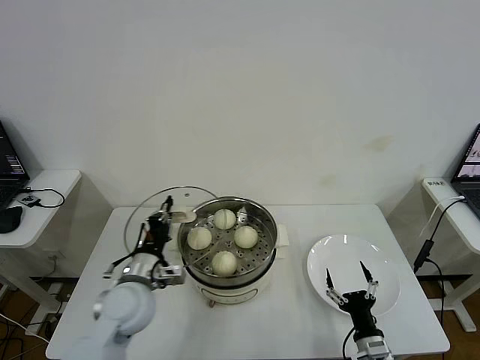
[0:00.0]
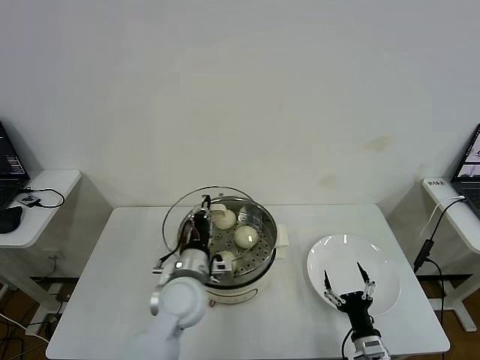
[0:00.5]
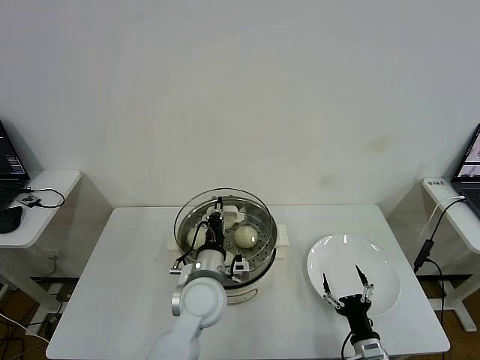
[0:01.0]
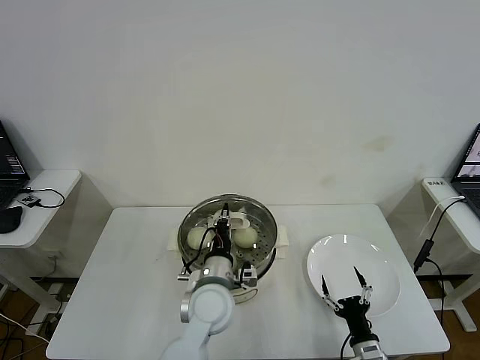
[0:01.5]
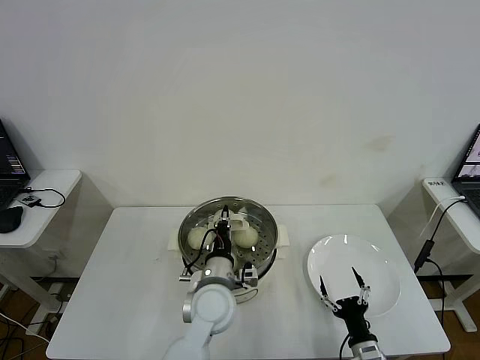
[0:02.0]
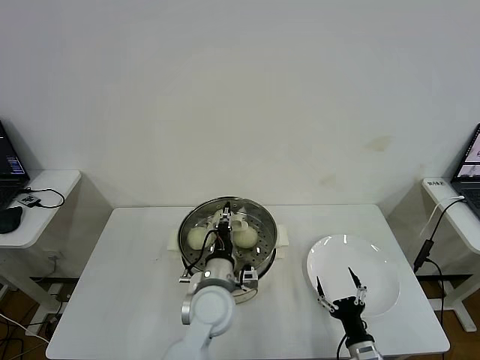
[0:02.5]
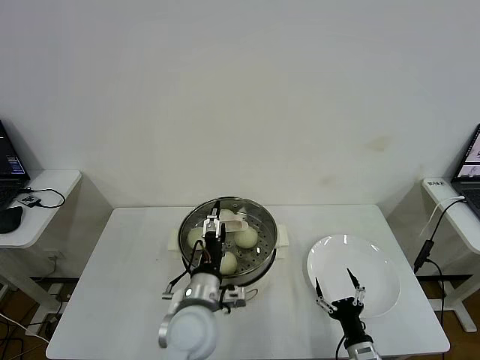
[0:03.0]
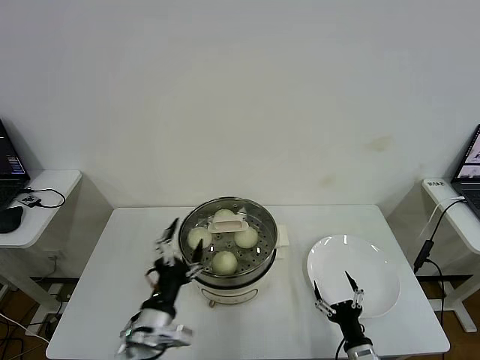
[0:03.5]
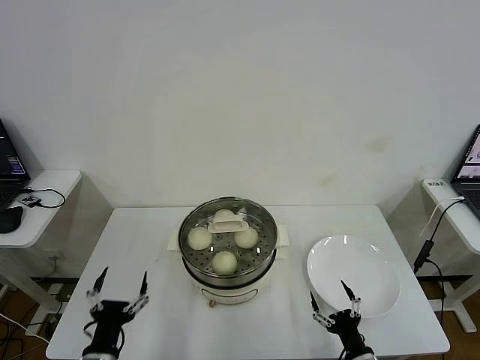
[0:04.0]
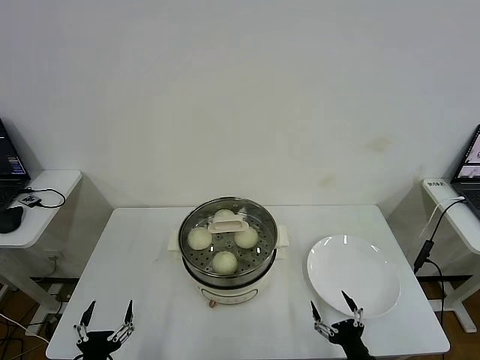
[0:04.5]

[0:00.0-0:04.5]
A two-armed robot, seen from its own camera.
Step, 0:00.0 to 0:02.5: Place the pot lid on the steamer with left gripper.
0:00.0 to 0:02.0: The left gripper moves to the right, some 15 cm.
0:02.0 to 0:04.5: The left gripper heads to the left and backward, covering about 35 cm, and opens its fingers; the right gripper moves some 5 cm.

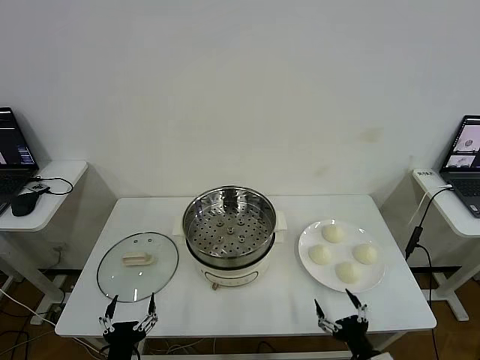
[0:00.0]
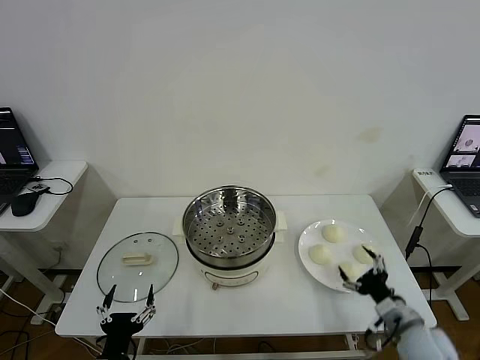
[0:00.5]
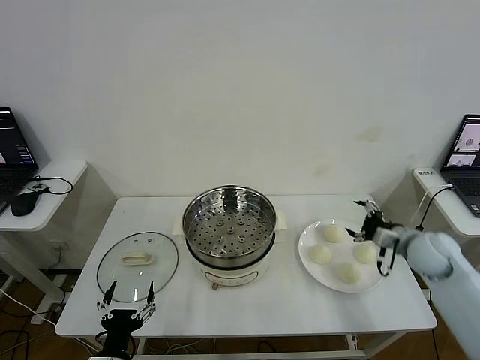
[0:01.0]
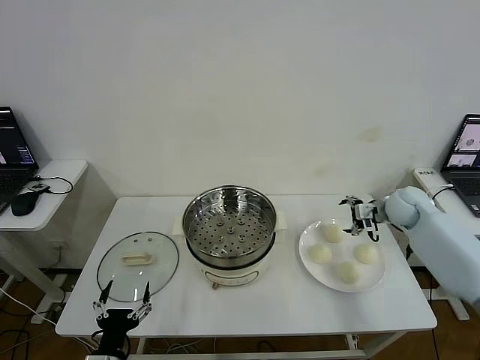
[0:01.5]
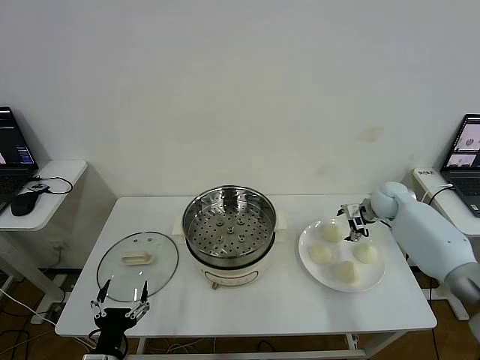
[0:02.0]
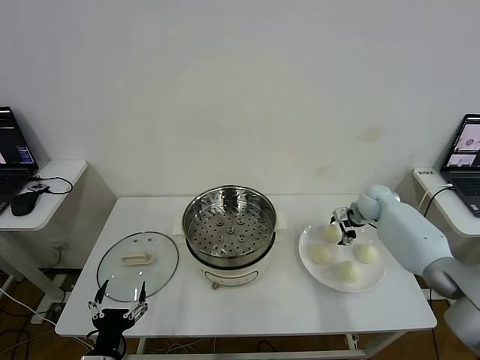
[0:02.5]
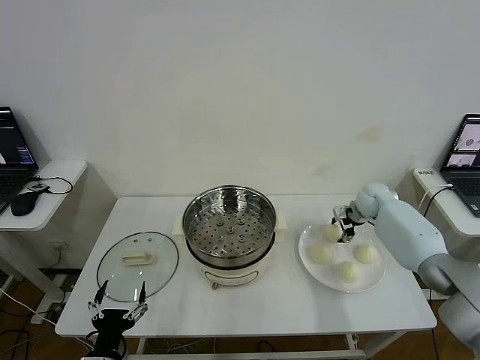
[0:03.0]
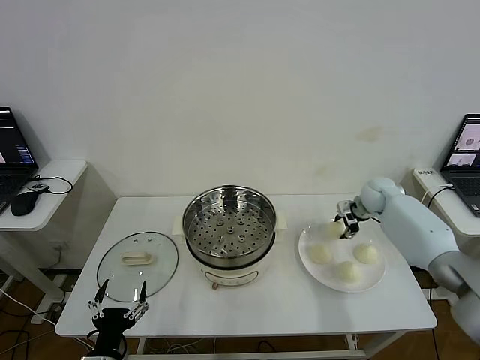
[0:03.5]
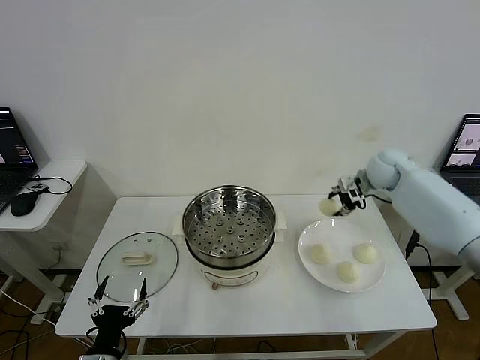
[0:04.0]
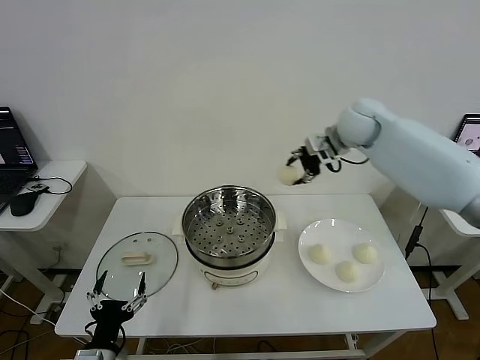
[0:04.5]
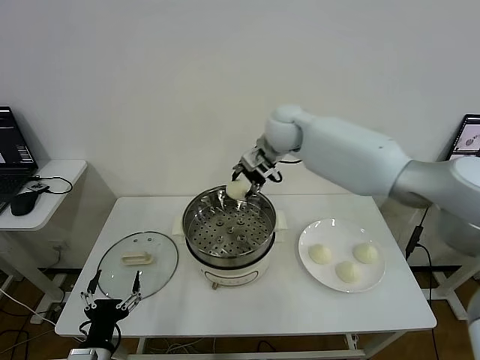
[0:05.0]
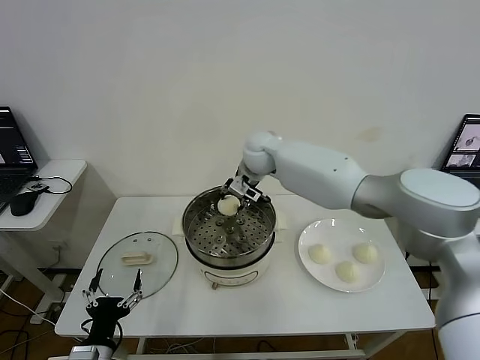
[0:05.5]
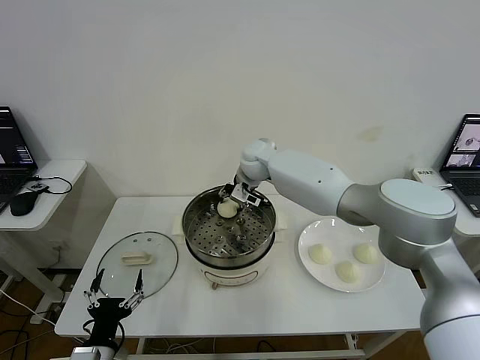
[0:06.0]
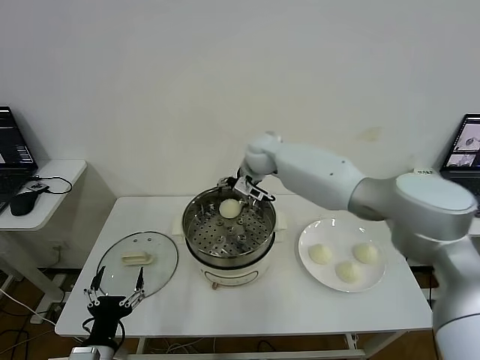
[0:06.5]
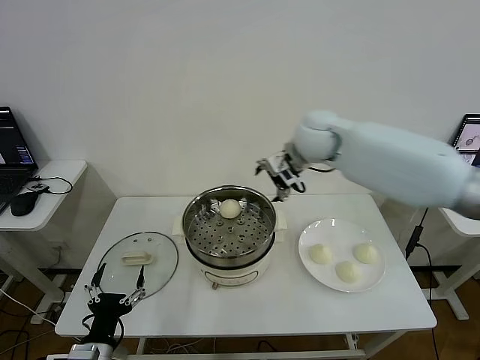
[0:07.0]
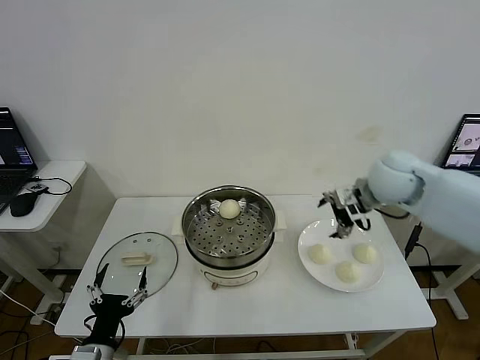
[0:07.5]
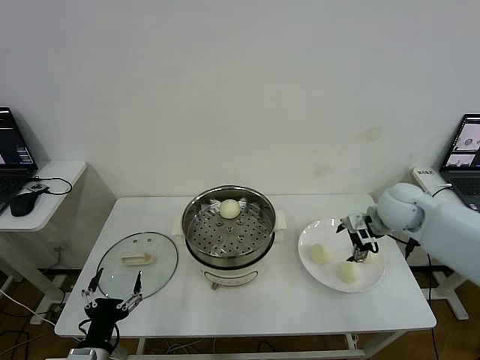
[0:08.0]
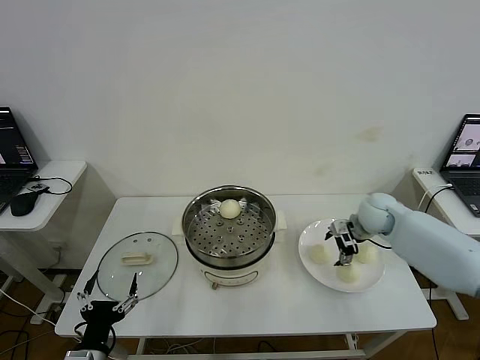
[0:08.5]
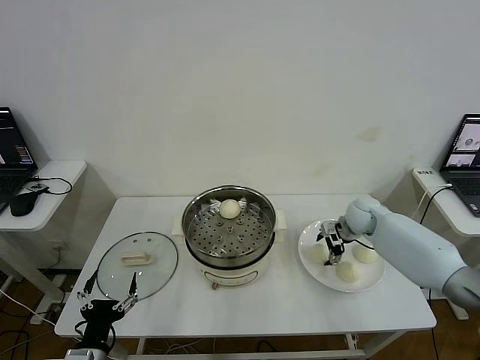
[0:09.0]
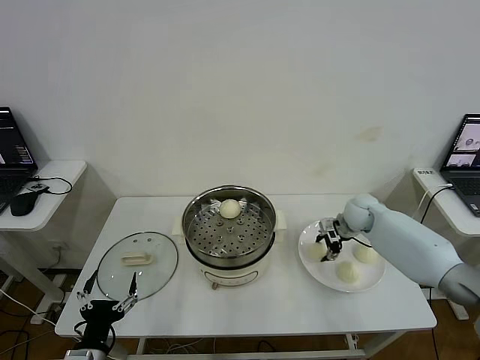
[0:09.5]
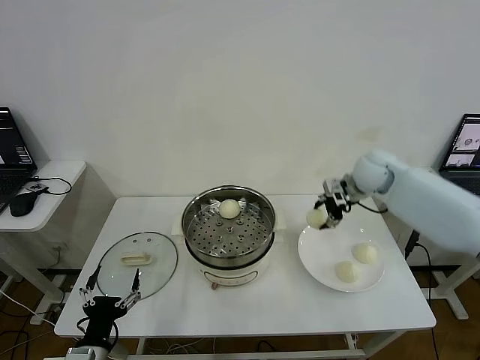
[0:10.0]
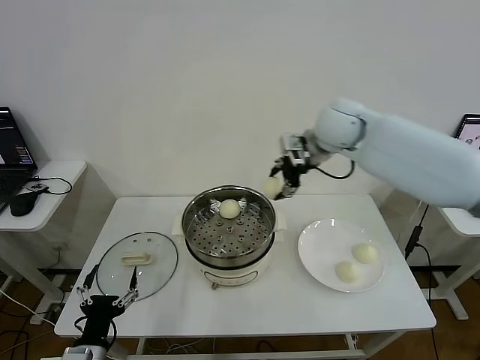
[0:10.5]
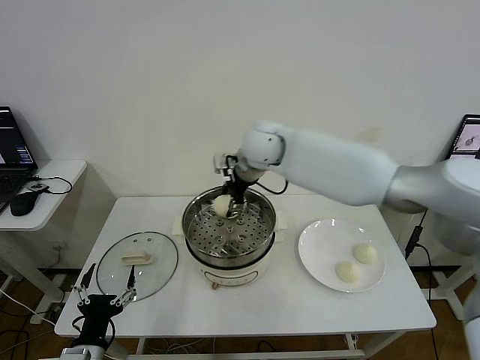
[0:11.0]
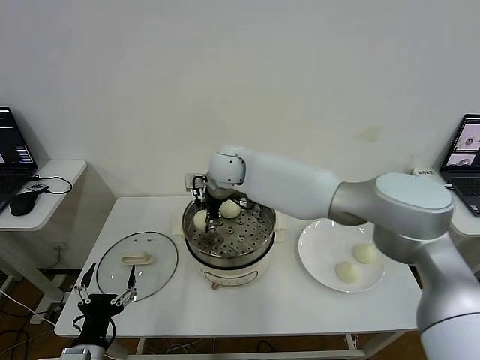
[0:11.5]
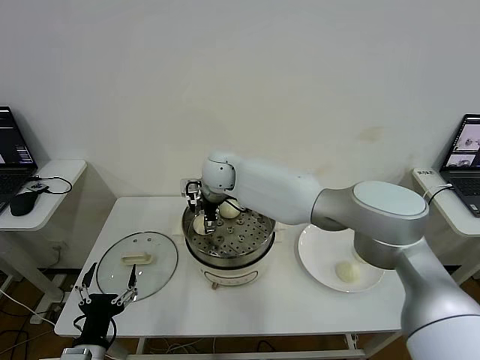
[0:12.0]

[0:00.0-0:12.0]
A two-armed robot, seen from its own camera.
Step, 0:00.0 to 0:03.0: Grasp the baozi in the plate with right gripper.
Step, 0:03.5 to 0:06.0: Place the baozi on the steamer with right gripper.
Step, 0:06.5 to 0:09.0: Grasp the baozi in the plate with right gripper.
Step, 0:10.0 to 0:12.0: Place the baozi on the steamer with right gripper.
0:02.0 to 0:04.0: The right gripper is displaced upward by approximately 15 cm, and closes.
0:04.0 to 0:06.0: The right gripper shifts roughly 30 cm to the left.
0:06.0 to 0:08.0: The right gripper heads to the right and backward, covering approximately 35 cm, and opens.
0:08.0 to 0:10.0: The right gripper goes roughly 15 cm upward, forward and to the left, and closes its fingers.
0:10.0 to 0:12.0: The right gripper goes approximately 35 cm to the left, and opens its fingers.

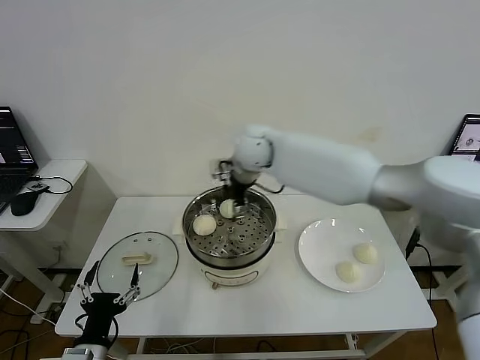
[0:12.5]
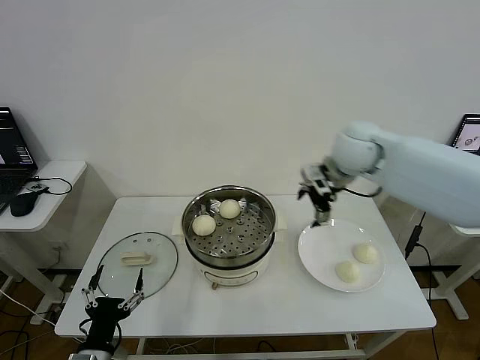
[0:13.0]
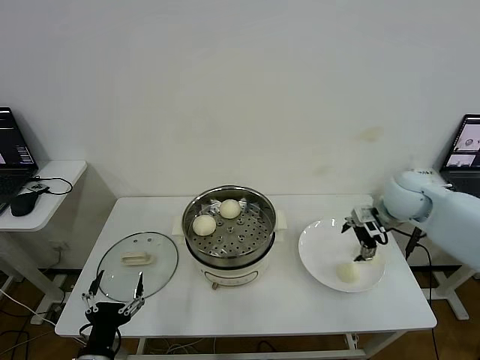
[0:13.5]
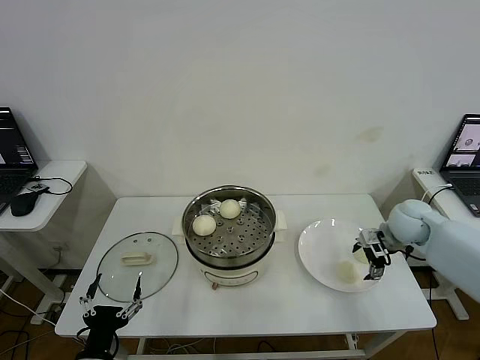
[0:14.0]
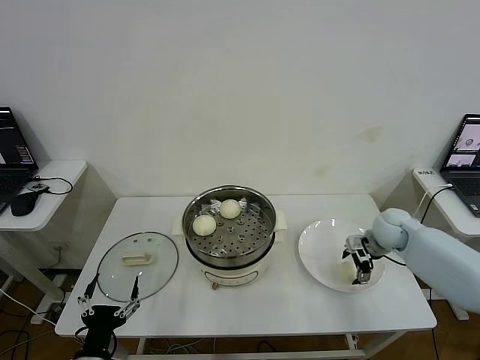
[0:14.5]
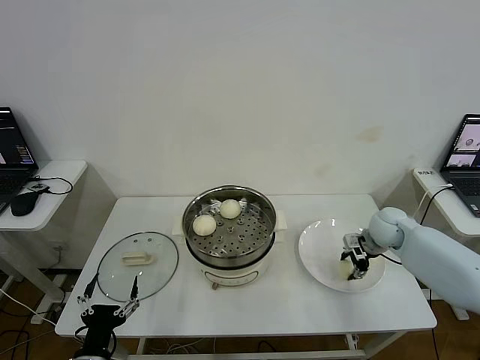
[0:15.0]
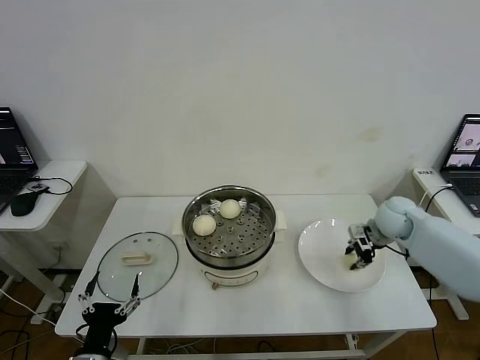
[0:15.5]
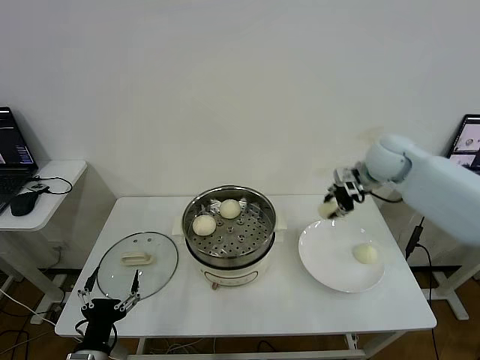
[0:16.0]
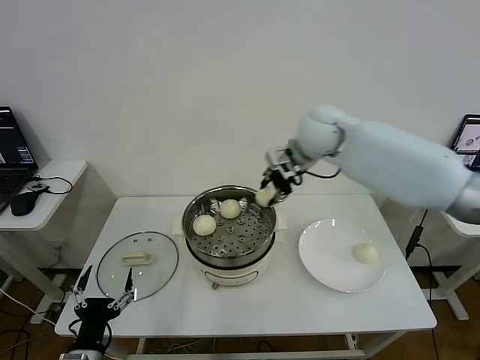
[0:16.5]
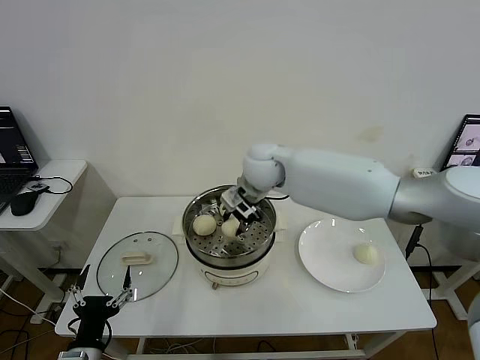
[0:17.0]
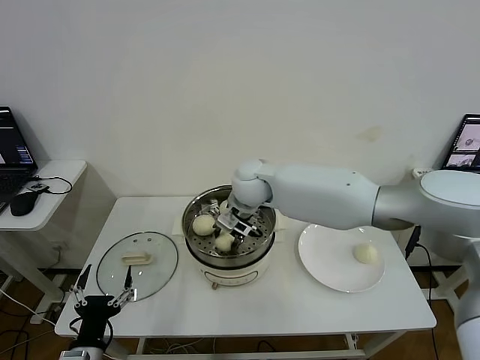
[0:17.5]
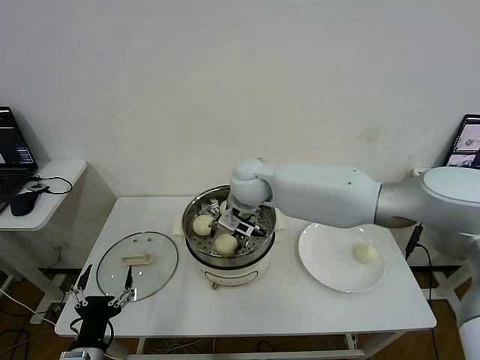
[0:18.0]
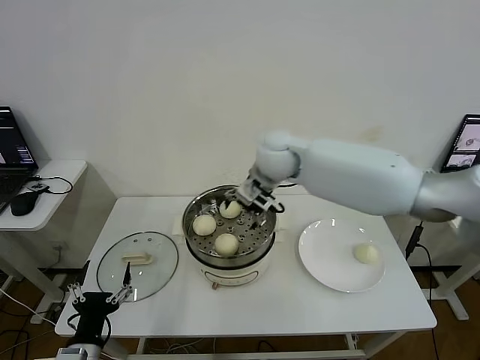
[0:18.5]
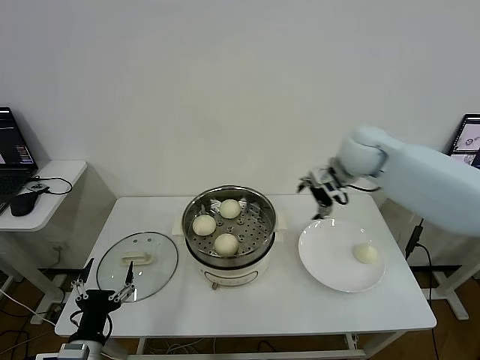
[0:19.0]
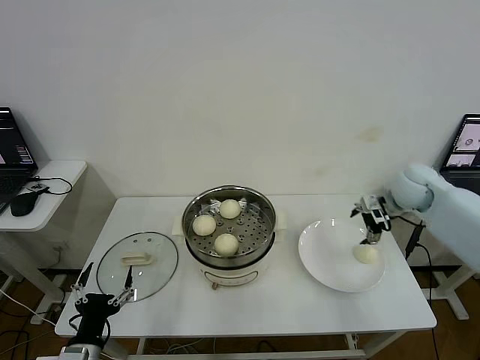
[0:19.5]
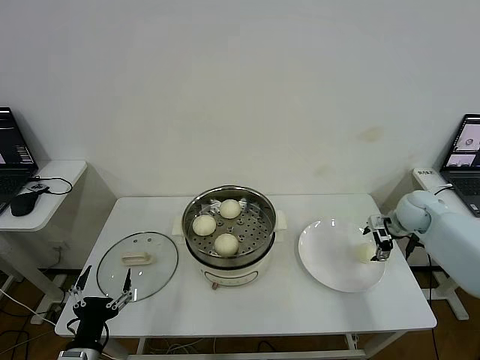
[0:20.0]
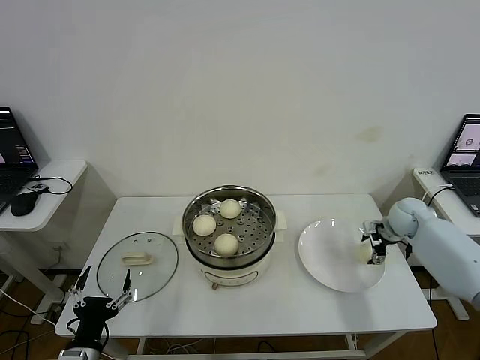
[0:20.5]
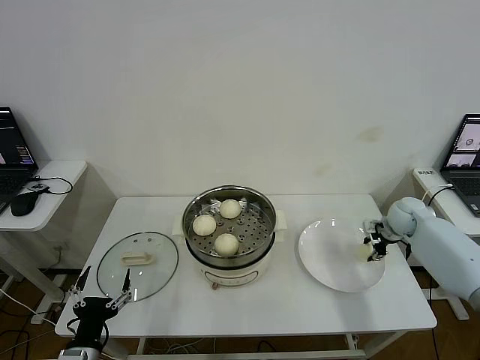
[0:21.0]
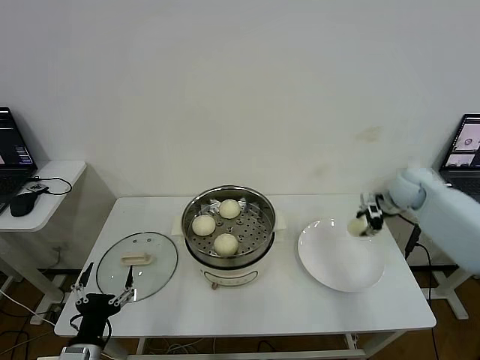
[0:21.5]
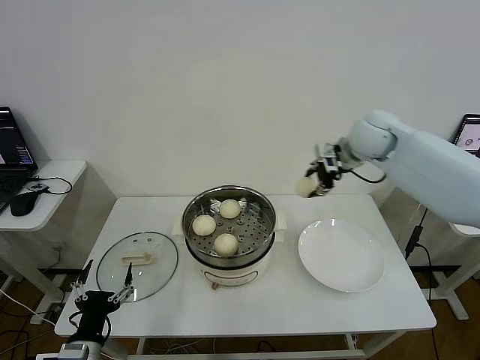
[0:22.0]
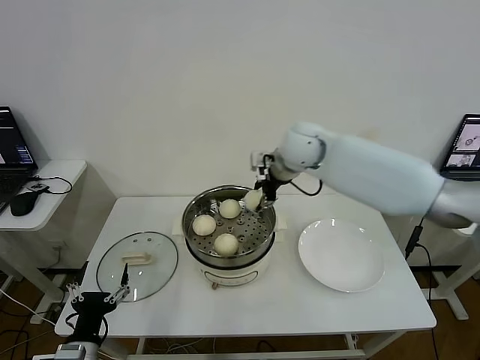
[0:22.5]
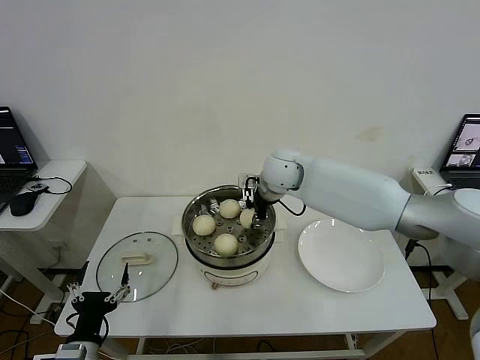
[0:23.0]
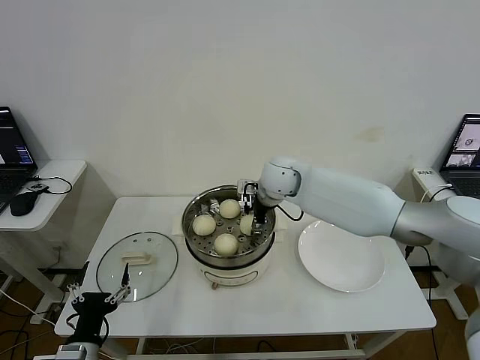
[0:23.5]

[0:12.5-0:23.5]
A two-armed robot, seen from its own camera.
Step, 0:12.5 to 0:15.0: Grasp the baozi in the plate with right gripper.
Step, 0:15.5 to 0:18.0: Place the baozi on the steamer with right gripper.
Step, 0:18.5 to 0:20.5: Grasp the baozi in the plate with right gripper.
0:12.5 to 0:14.5: The right gripper goes approximately 35 cm to the right and downward.
0:14.5 to 0:16.0: The right gripper moves upward, roughly 20 cm, and closes.
0:16.0 to 0:18.0: The right gripper shifts roughly 25 cm to the left, and opens its fingers.
0:18.0 to 0:20.0: The right gripper shifts roughly 40 cm to the right.
0:20.0 to 0:21.5: The right gripper travels upward by approximately 10 cm, and closes up.
0:21.5 to 0:23.5: The right gripper travels to the left by approximately 30 cm, and opens up.
